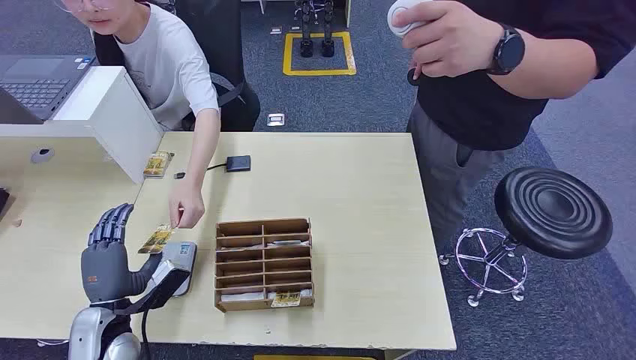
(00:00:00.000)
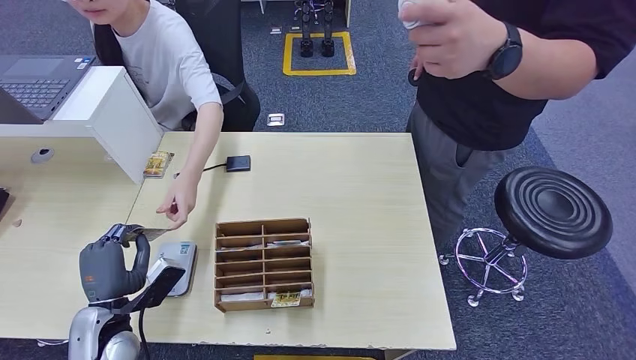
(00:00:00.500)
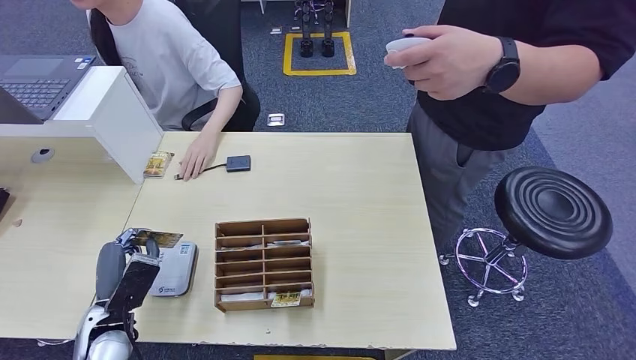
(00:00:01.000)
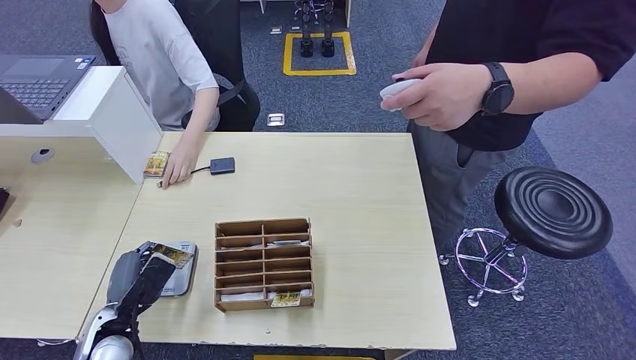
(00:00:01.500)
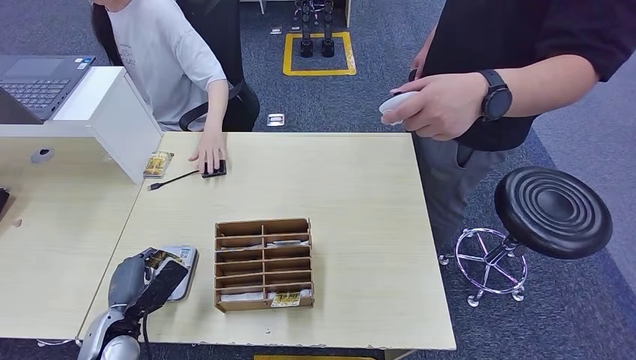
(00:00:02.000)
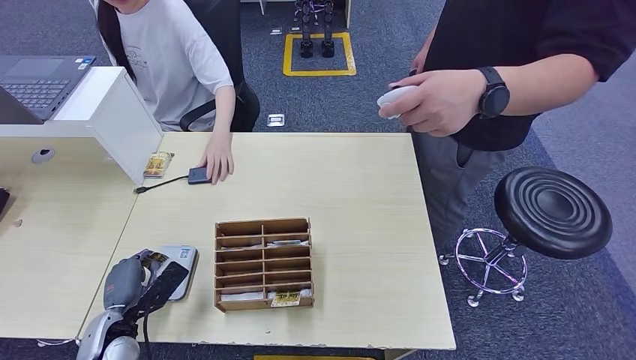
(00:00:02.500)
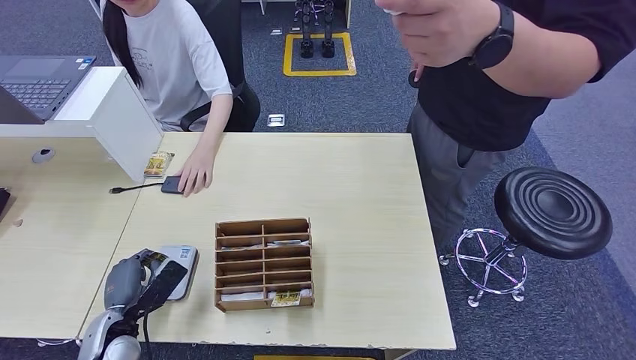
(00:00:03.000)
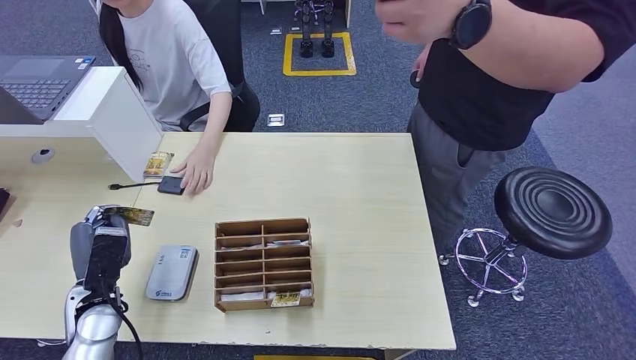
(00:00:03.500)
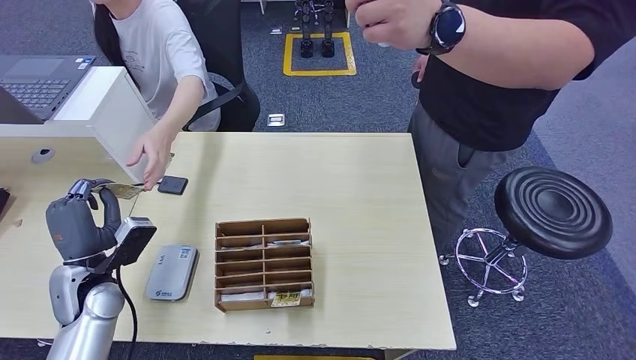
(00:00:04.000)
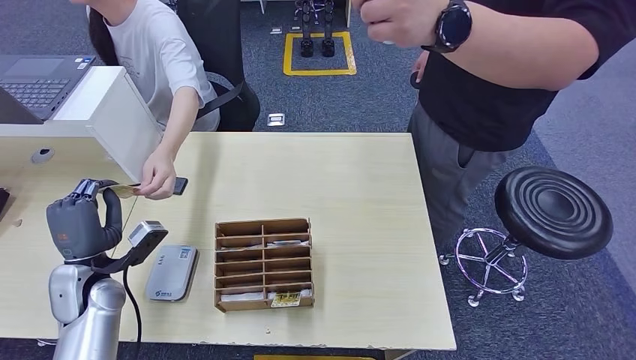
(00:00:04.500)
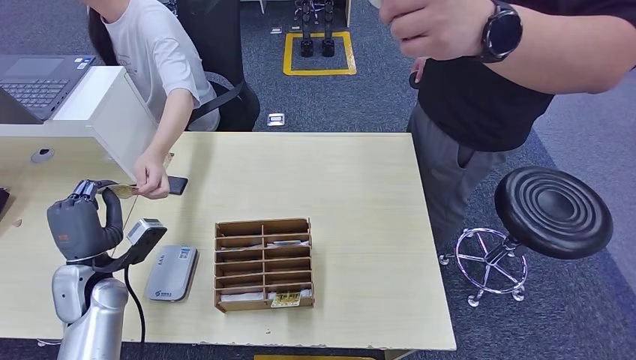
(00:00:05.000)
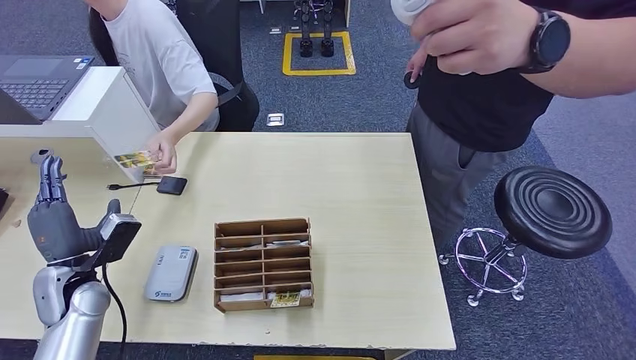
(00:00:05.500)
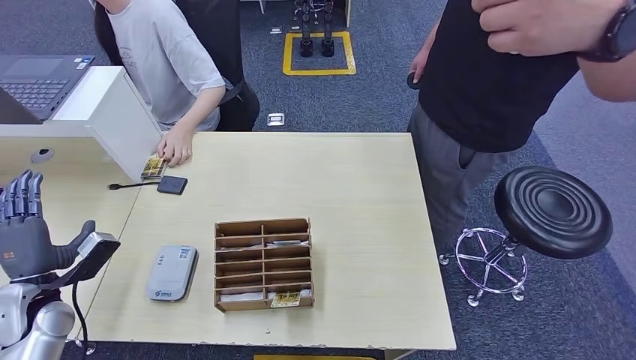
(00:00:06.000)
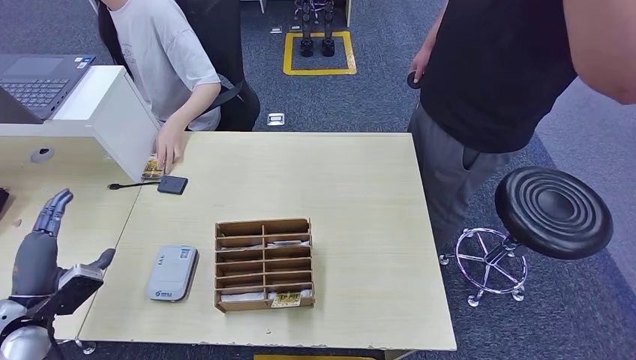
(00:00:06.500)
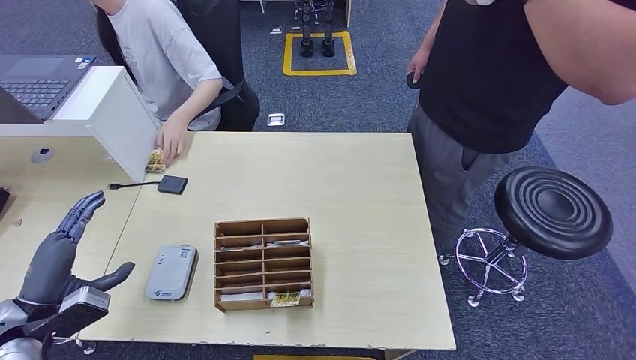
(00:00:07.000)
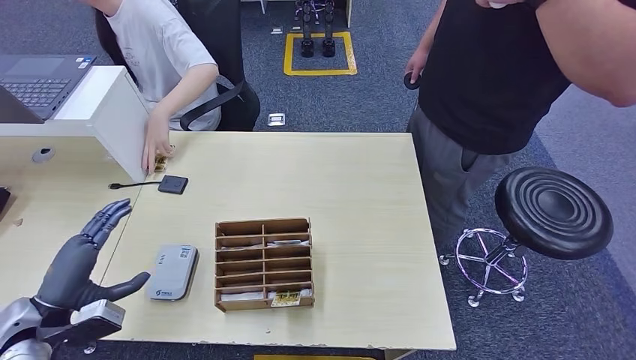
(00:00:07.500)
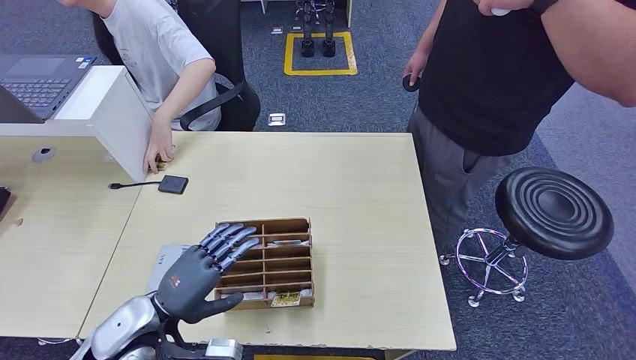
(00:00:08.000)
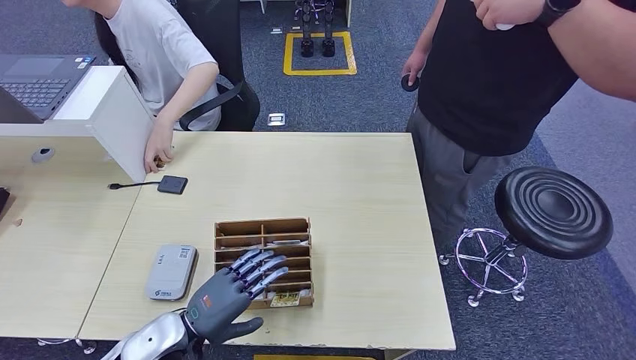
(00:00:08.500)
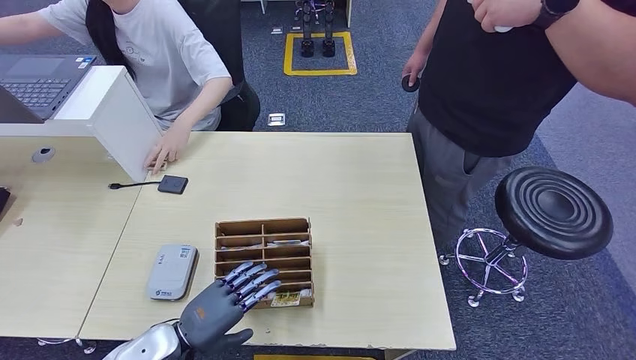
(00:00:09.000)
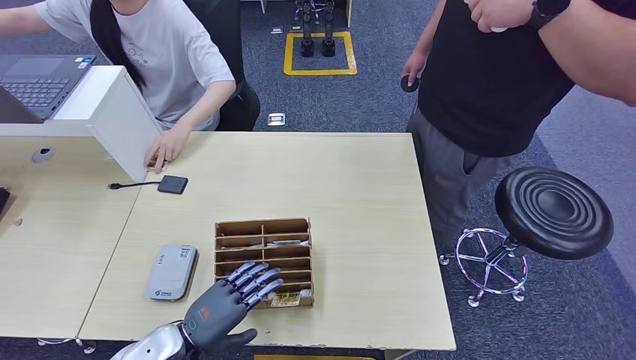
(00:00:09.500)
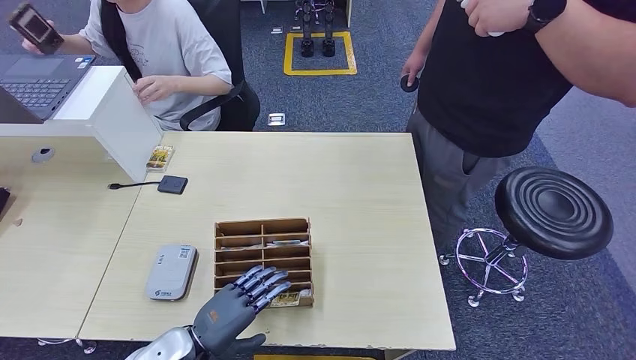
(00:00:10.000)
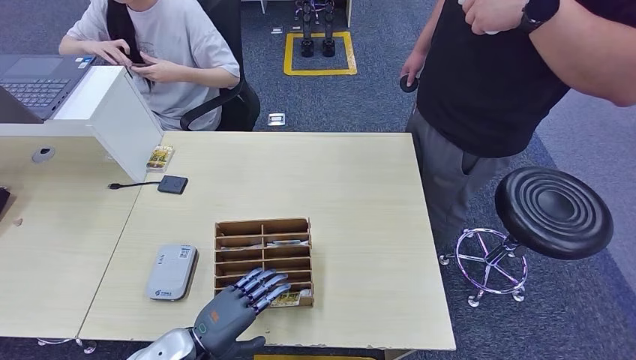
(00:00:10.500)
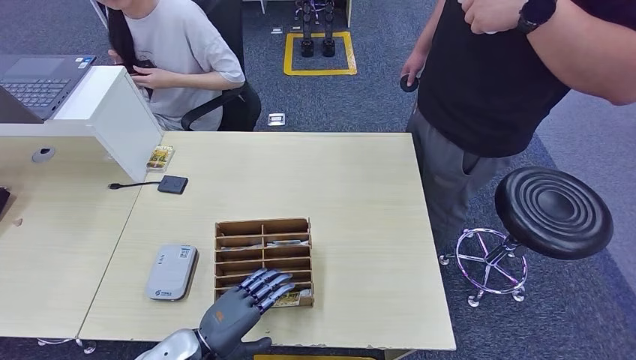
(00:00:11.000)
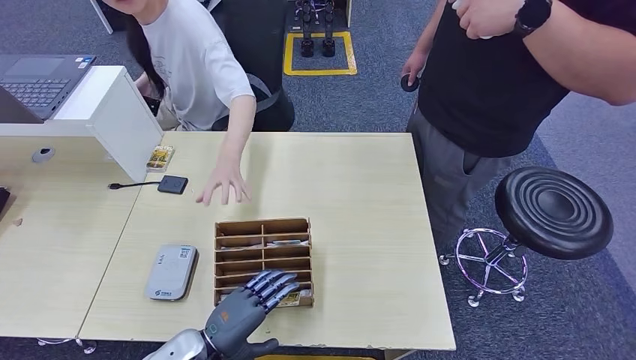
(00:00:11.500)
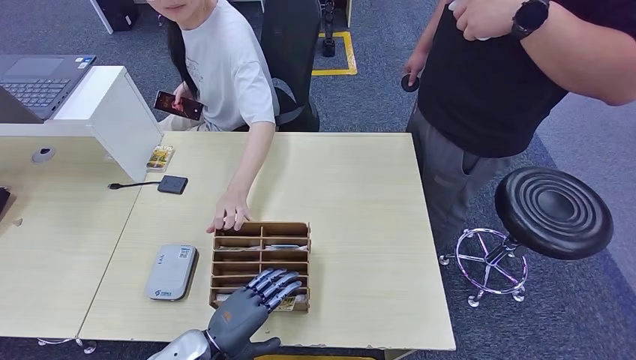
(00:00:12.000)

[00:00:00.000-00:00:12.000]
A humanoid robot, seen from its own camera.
Step, 00:00:00.000 to 00:00:00.500: Take the ID card from the person's hand.
Step, 00:00:01.000 to 00:00:02.000: Place the ID card on the card reader.
Step, 00:00:03.000 to 00:00:06.000: Hand the ID card to the person.
00:00:06.000 to 00:00:08.000: The left hand is displaced to the right by approximately 20 cm.
00:00:08.000 to 00:00:10.000: The left hand travels downward by some 5 cm.
00:00:10.000 to 00:00:12.000: The hands stay close to where they were, moving slightly.

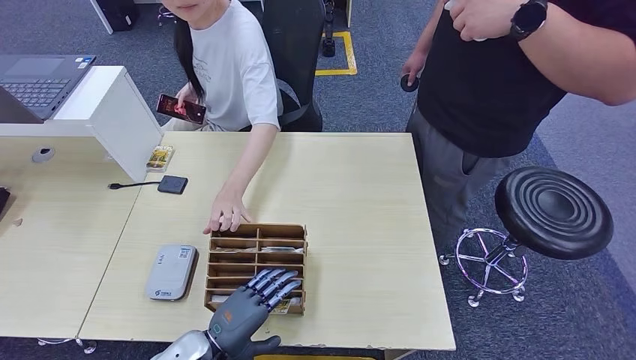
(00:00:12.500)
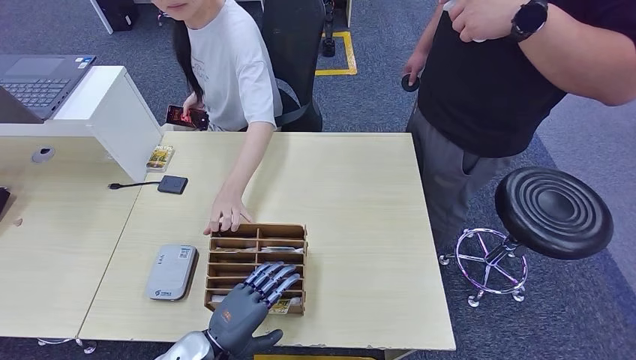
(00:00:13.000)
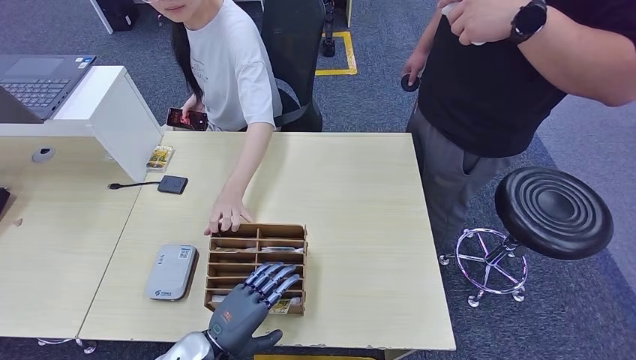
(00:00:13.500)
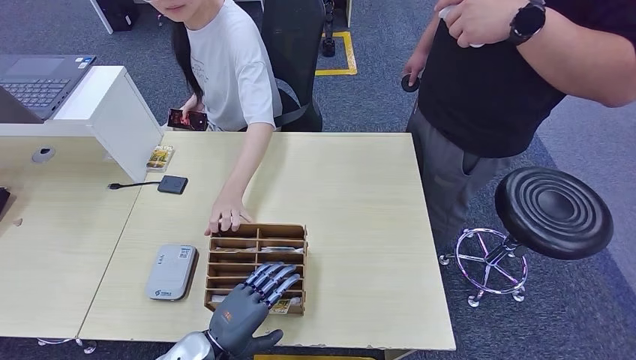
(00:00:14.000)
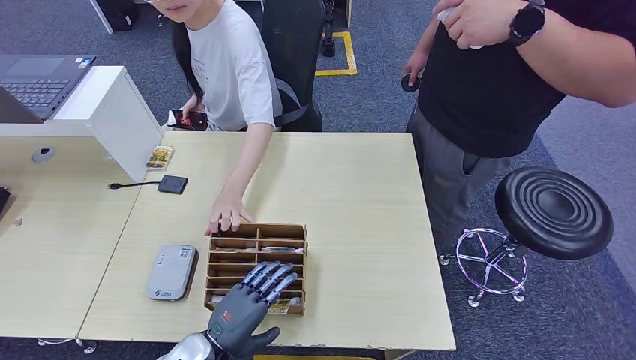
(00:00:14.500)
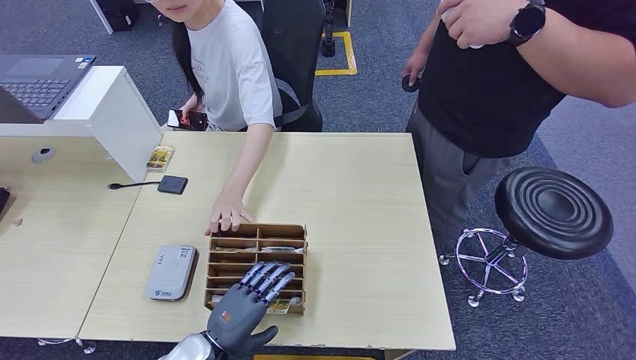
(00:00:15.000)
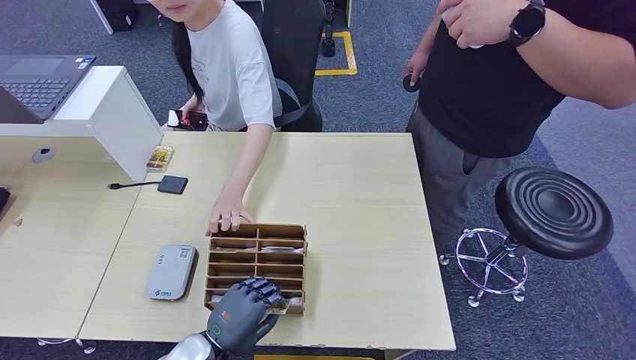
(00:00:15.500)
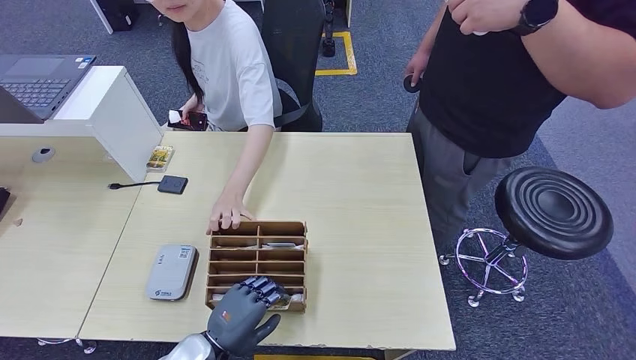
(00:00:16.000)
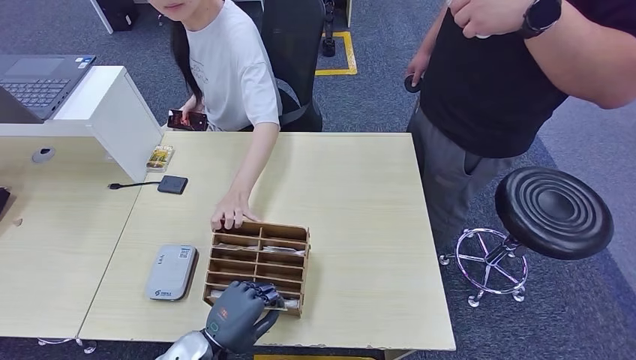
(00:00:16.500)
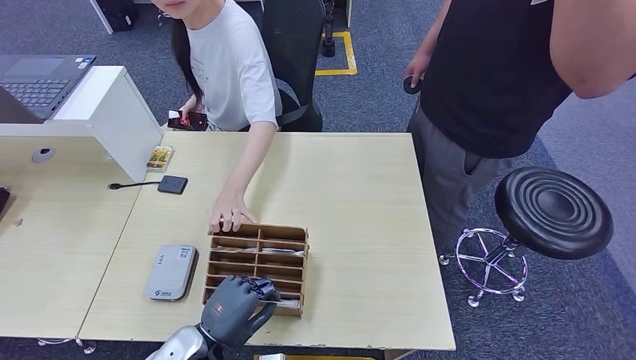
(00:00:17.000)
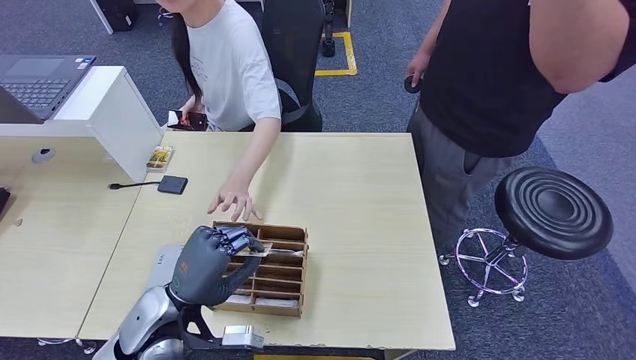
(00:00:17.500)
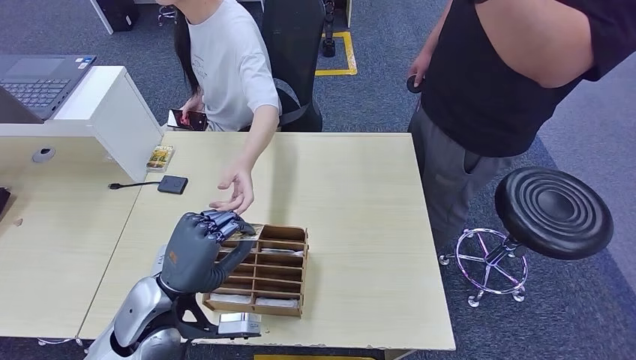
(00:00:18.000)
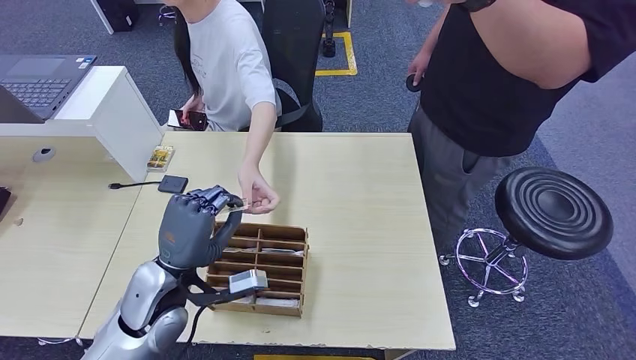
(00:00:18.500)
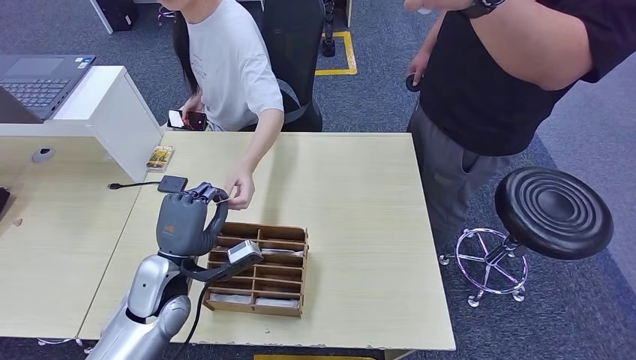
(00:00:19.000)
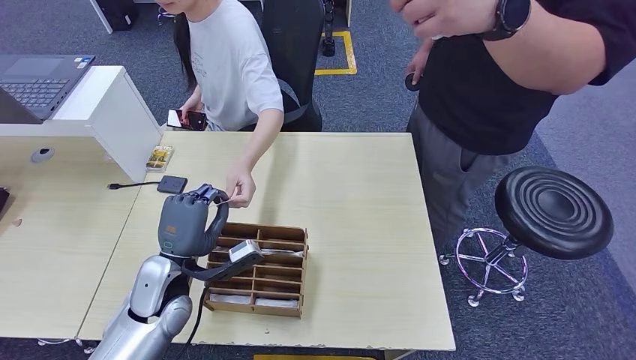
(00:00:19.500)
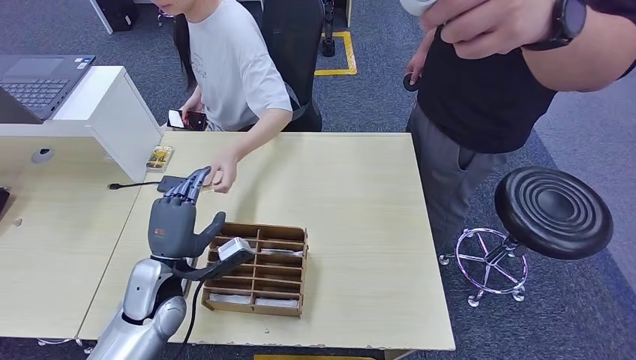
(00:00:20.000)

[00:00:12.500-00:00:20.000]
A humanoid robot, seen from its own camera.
Step, 00:00:12.500 to 00:00:18.000: Pick up the room key from the key card box.
Step, 00:00:18.500 to 00:00:20.000: Hand the room key to the person.
00:00:12.500 to 00:00:14.500: The hands stay close to where they were, moving slightly.
00:00:14.500 to 00:00:16.500: Both hands stay put.
00:00:16.500 to 00:00:18.000: The left hand goes about 10 cm upward and forward.
00:00:18.000 to 00:00:20.000: The left hand travels forward by roughly 5 cm.
